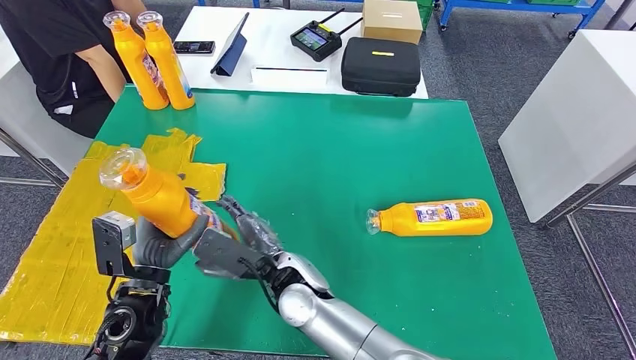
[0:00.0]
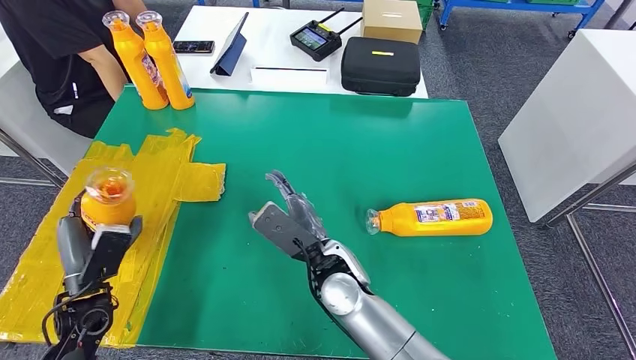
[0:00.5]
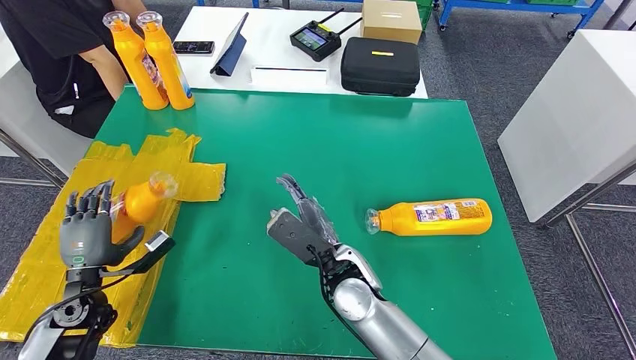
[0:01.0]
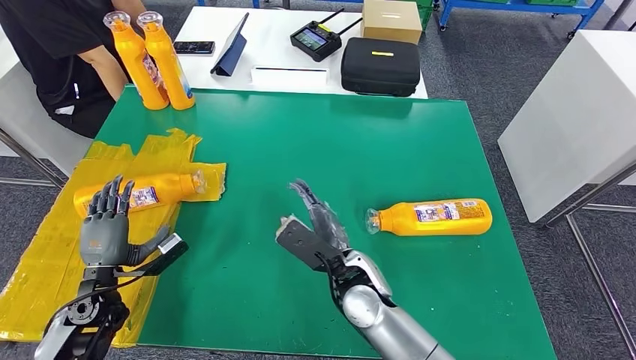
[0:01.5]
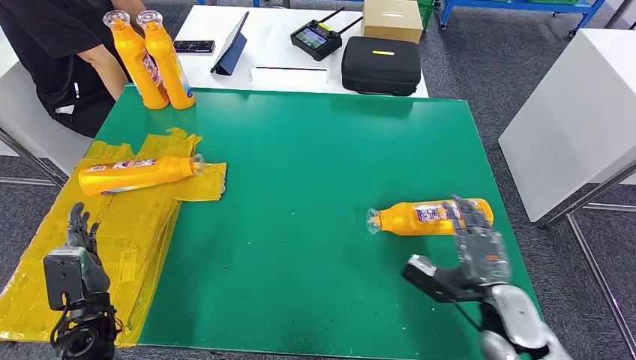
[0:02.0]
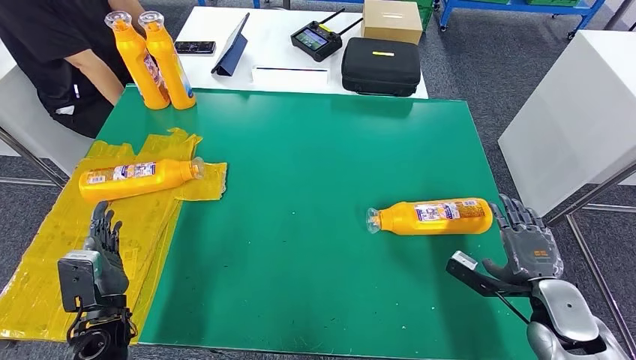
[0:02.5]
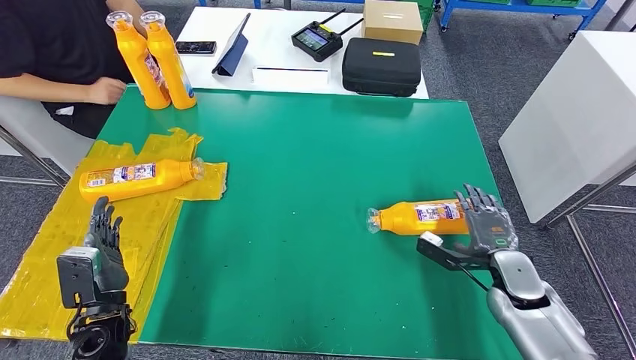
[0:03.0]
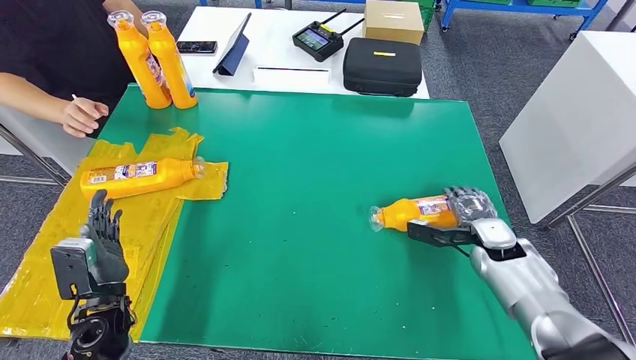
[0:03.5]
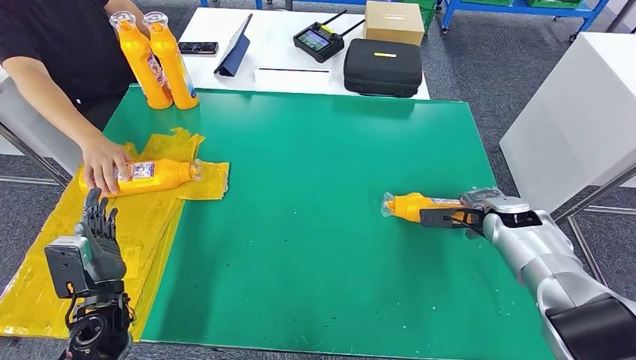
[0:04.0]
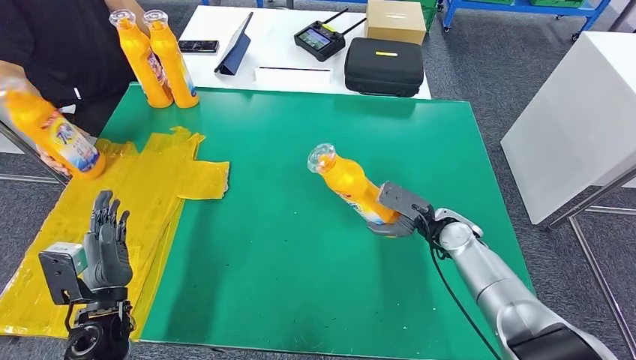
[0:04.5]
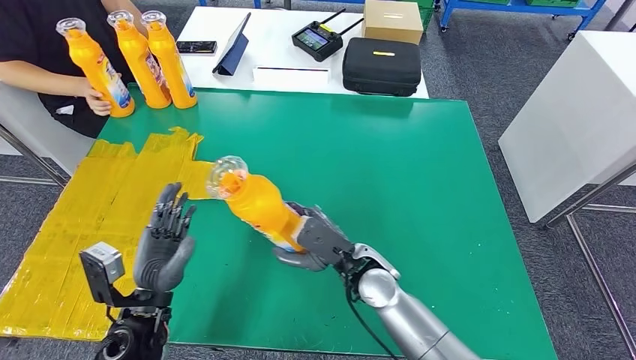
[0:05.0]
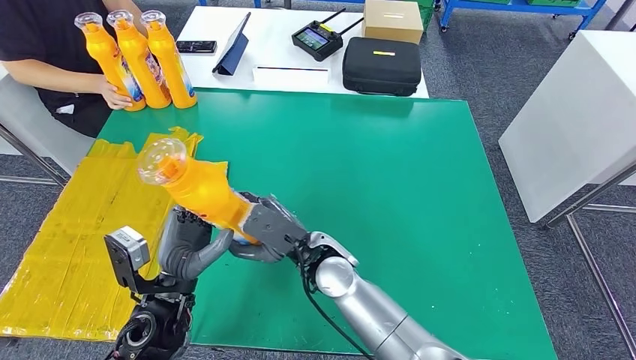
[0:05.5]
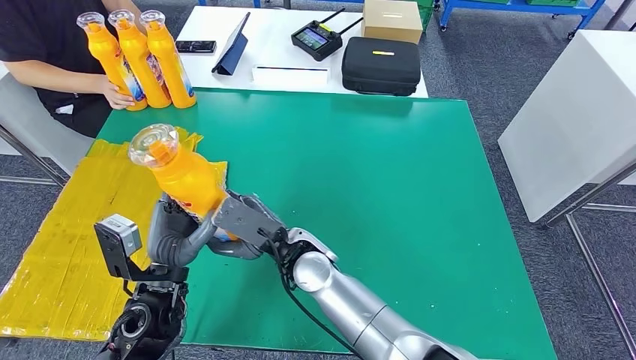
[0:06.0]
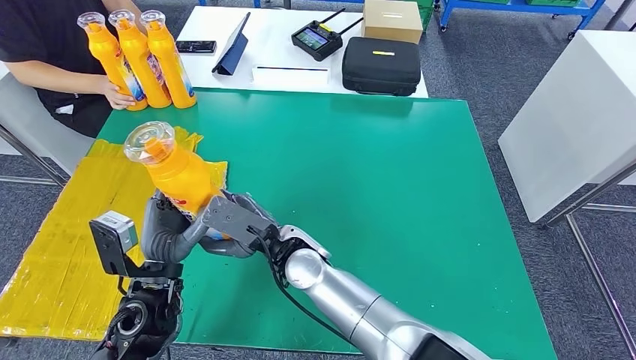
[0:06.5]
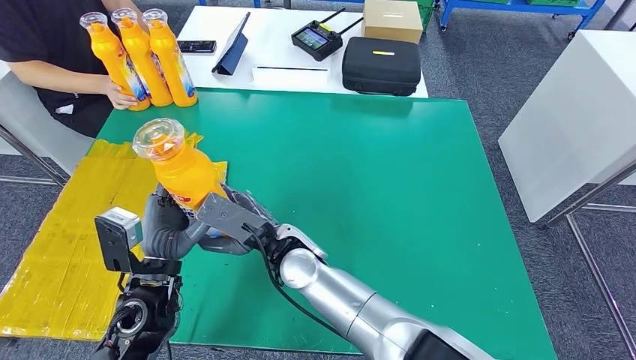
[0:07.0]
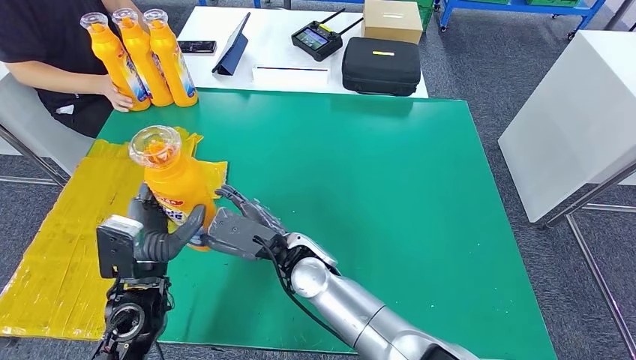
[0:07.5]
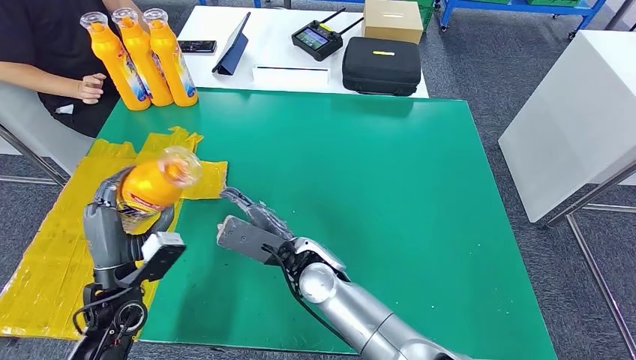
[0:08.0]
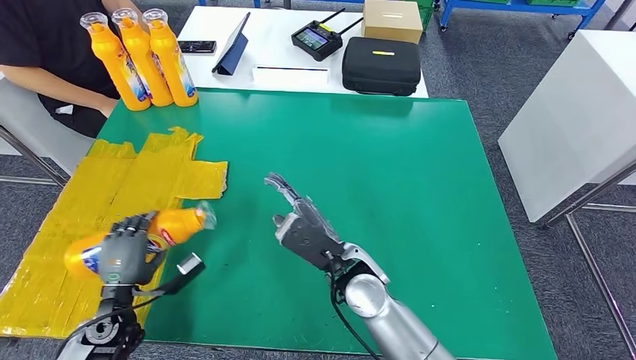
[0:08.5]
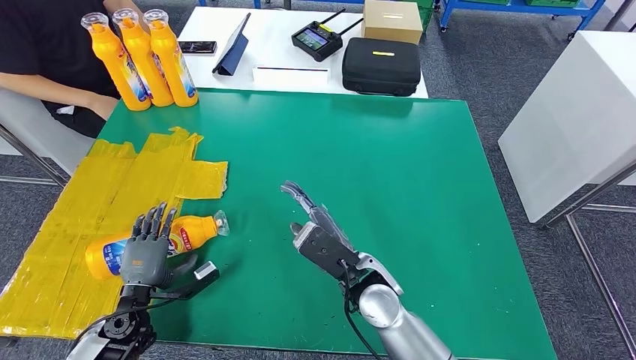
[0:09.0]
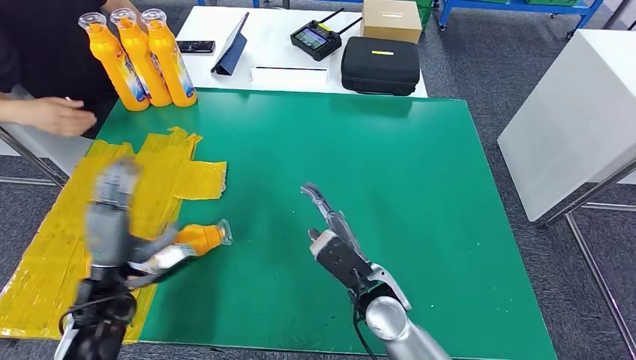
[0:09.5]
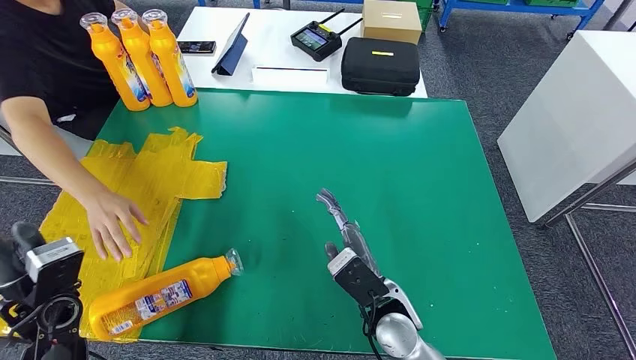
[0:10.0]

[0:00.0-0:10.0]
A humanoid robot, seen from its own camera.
Step, 0:00.0 to 0:02.5: Flip the bottle to face forward.
Step, 0:03.0 to 0:06.0: Pick up the bottle from the table.
Step, 0:06.5 to 0:10.0: Flip the bottle to face forward.
0:06.0 to 0:08.0: The left hand goes roughly 10 cm to the left.
